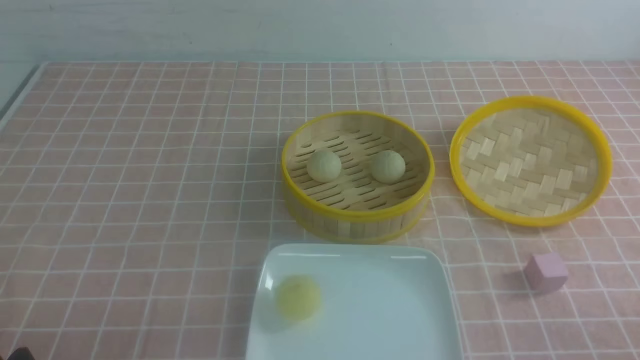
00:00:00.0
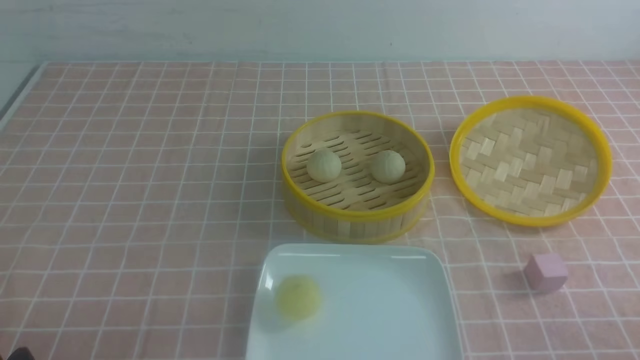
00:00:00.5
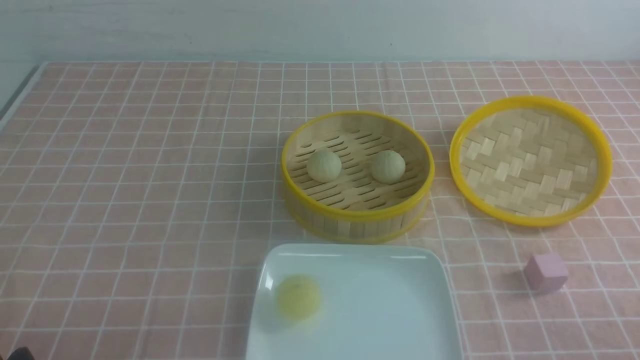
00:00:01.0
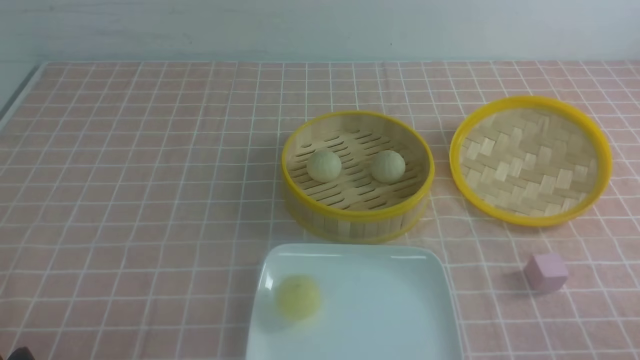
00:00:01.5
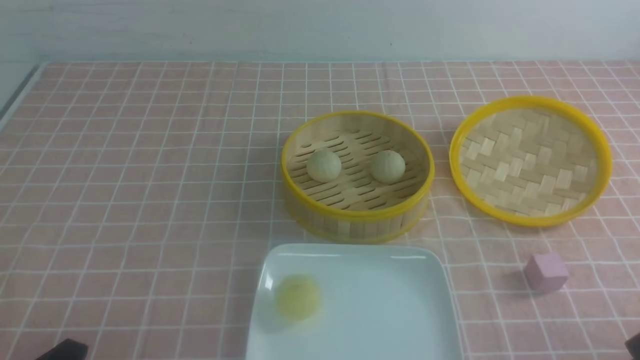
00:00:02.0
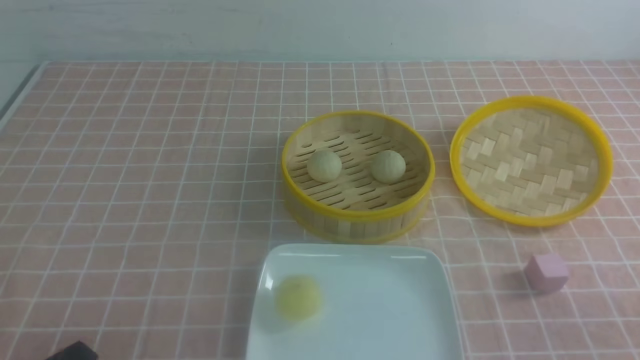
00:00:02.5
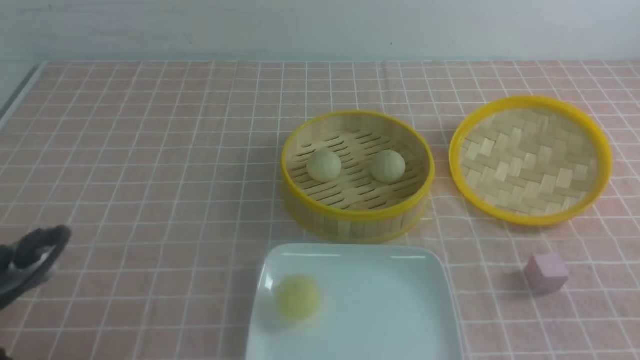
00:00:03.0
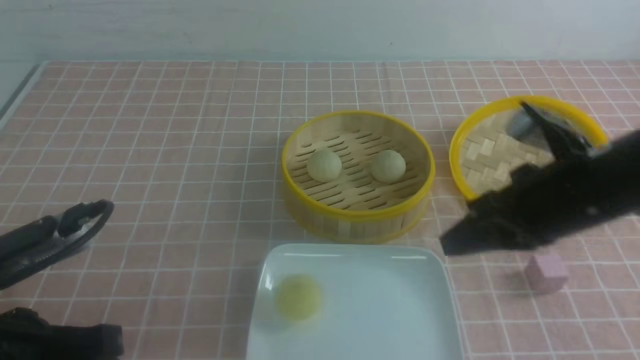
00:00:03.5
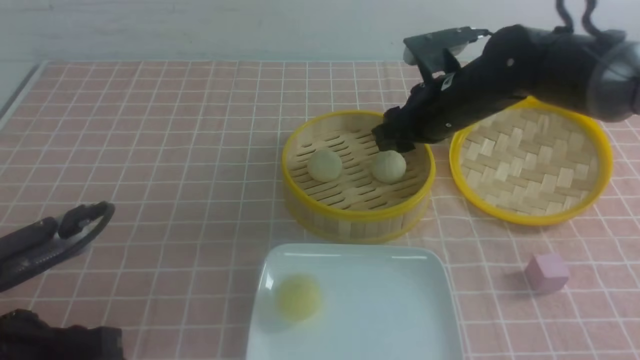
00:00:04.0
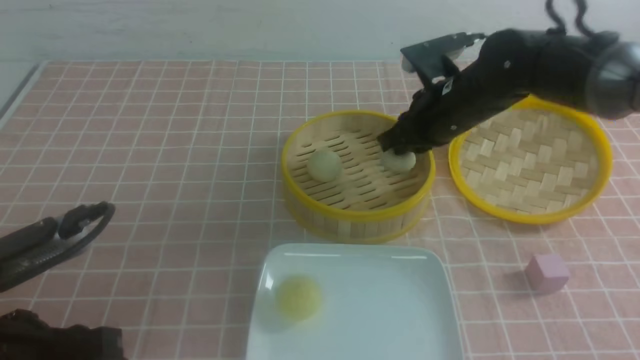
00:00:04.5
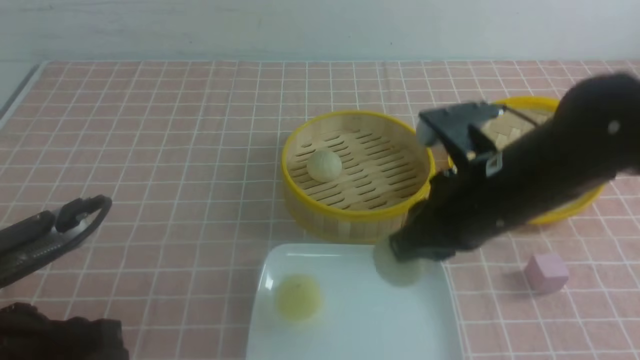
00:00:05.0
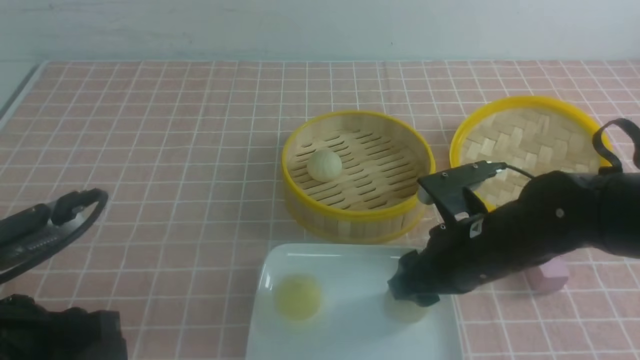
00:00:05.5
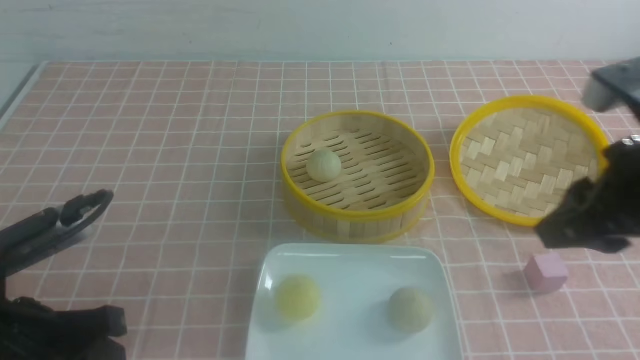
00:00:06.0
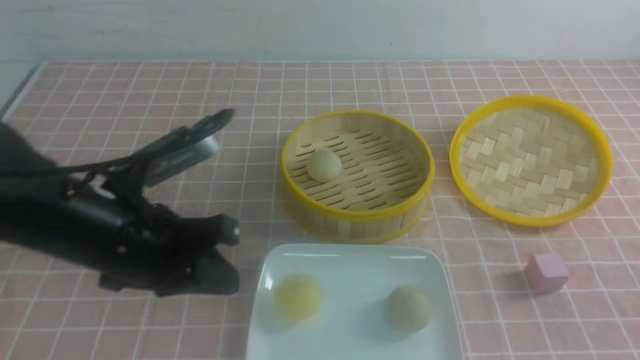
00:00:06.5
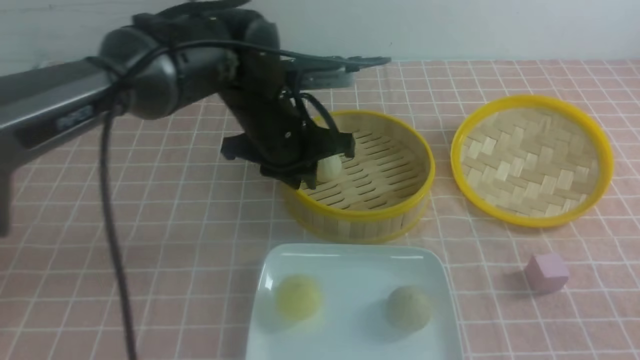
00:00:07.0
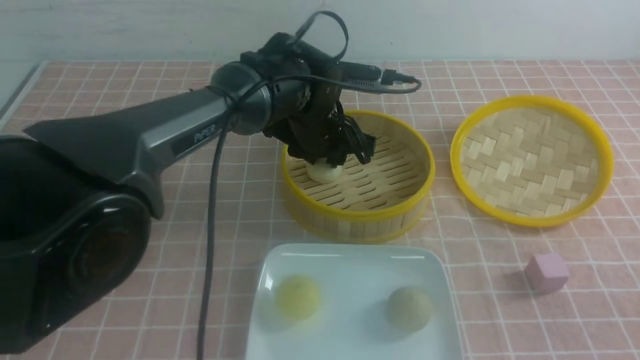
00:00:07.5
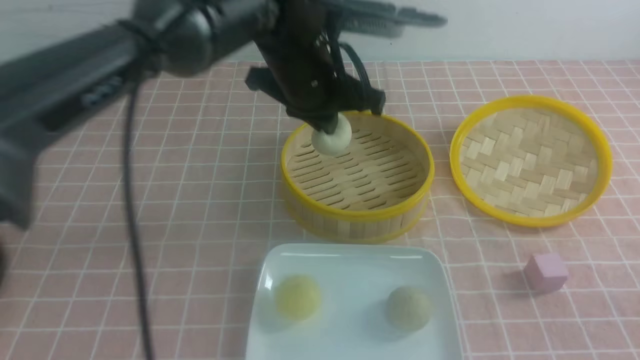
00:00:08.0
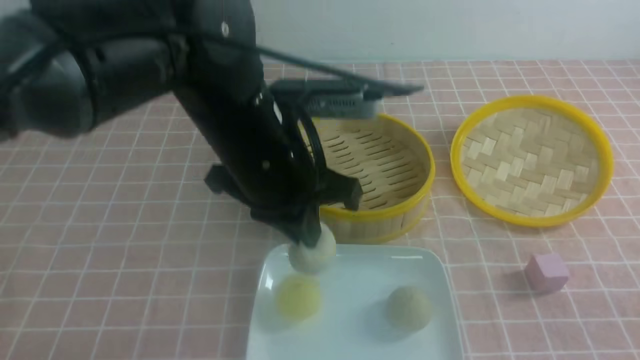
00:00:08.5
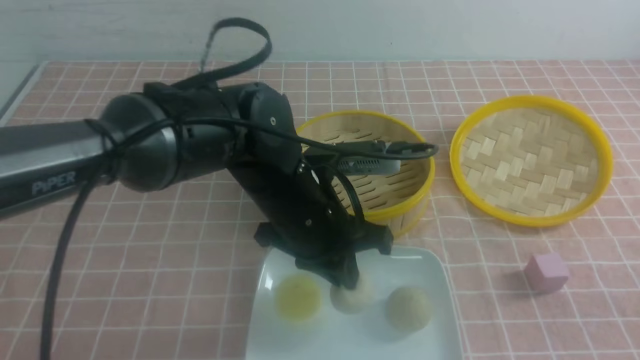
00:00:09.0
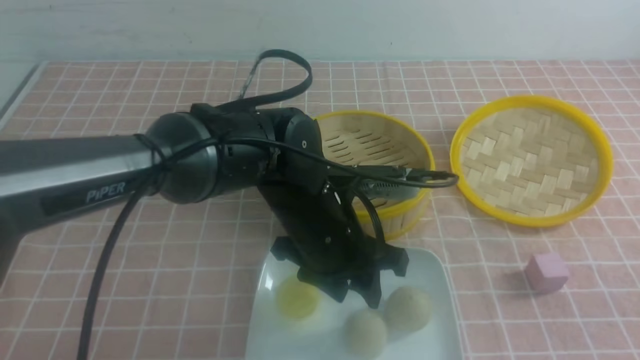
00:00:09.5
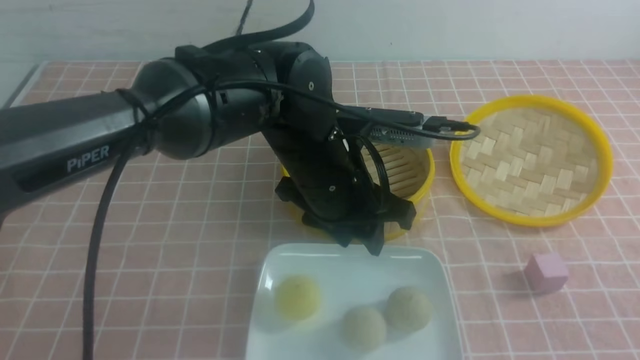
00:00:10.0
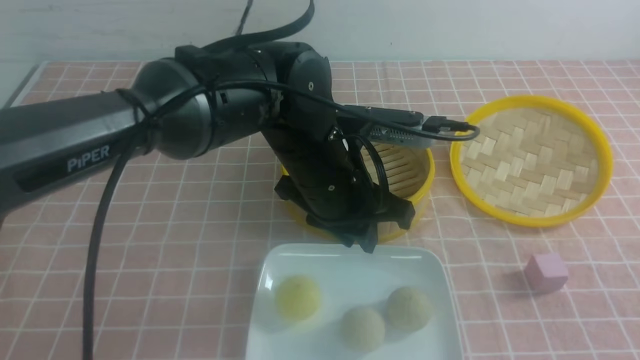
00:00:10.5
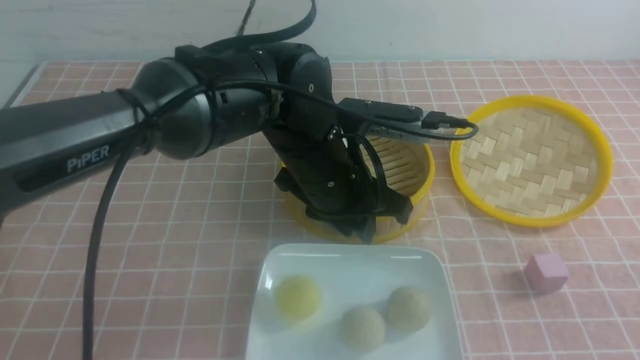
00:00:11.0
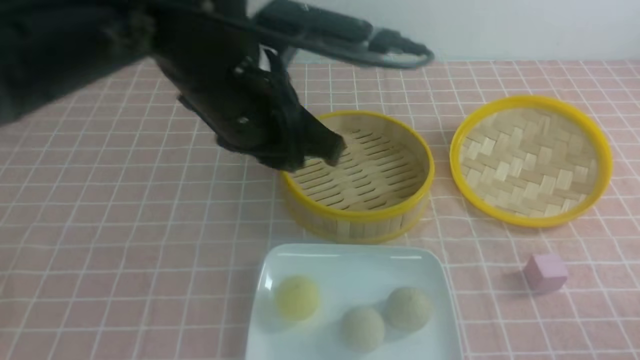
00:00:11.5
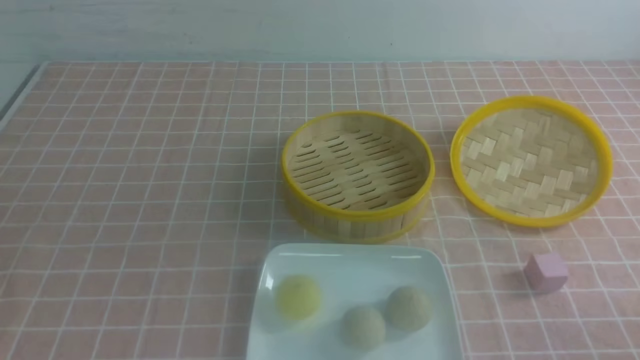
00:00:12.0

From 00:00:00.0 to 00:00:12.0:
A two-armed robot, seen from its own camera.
Step, from 00:00:00.0 to 00:00:04.0: use the right arm to grab the steamed stuffed bun that is closest to it.
Step, from 00:00:04.5 to 00:00:05.5: use the right arm to put the steamed stuffed bun into the plate.
Step, from 00:00:06.0 to 00:00:07.5: use the left arm to grab the steamed stuffed bun that is closest to it.
Step, from 00:00:08.0 to 00:00:09.0: use the left arm to put the steamed stuffed bun into the plate.
From 00:00:02.0 to 00:00:04.0: The right gripper heads forward and to the left, covering roughly 40 cm, and closes and opens again. The left gripper goes about 10 cm upward and forward, and closes and opens again.
From 00:00:04.0 to 00:00:06.0: The right gripper goes roughly 25 cm backward, upward and to the right, and closes and opens again.
From 00:00:06.0 to 00:00:08.0: The right gripper heads backward and to the right, covering about 15 cm, and closes its fingers. The left gripper moves to the right, forward and upward, about 30 cm, and closes.
From 00:00:08.0 to 00:00:10.0: The left gripper shifts about 10 cm downward and backward, and opens its fingers. Meanwhile the right gripper goes about 5 cm backward.
From 00:00:10.0 to 00:00:12.0: The right gripper travels downward by about 15 cm, while the left gripper shifts approximately 35 cm to the left, backward and upward, and closes its fingers.

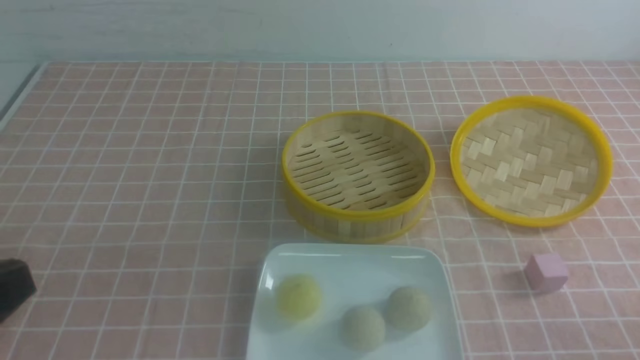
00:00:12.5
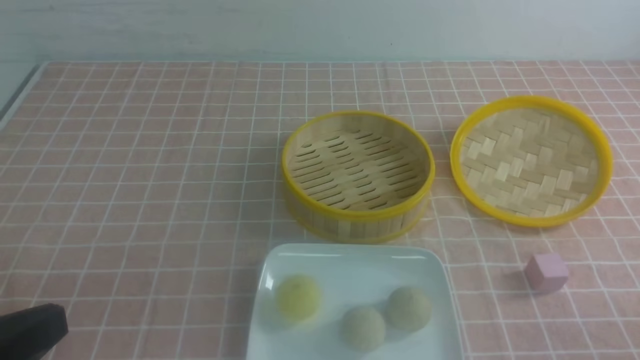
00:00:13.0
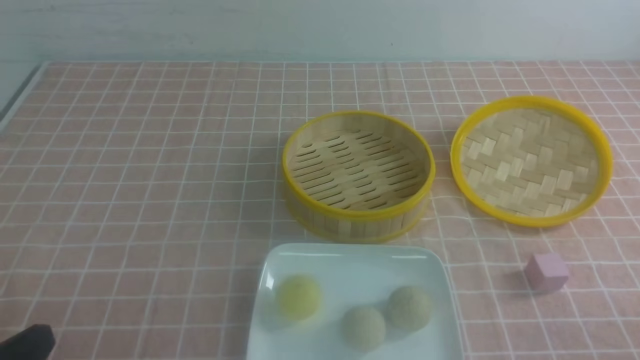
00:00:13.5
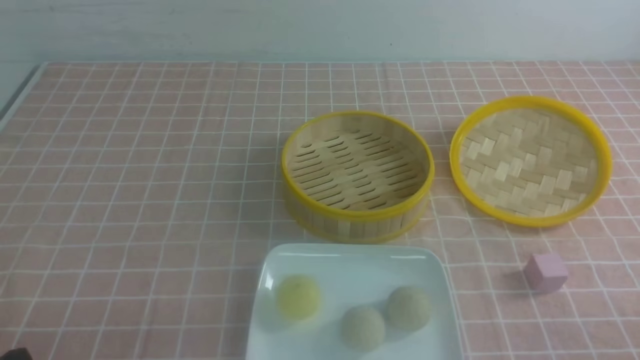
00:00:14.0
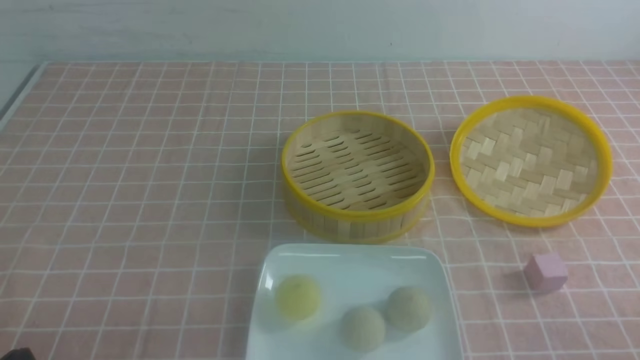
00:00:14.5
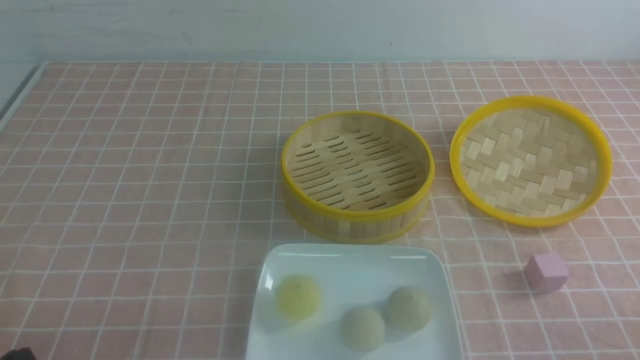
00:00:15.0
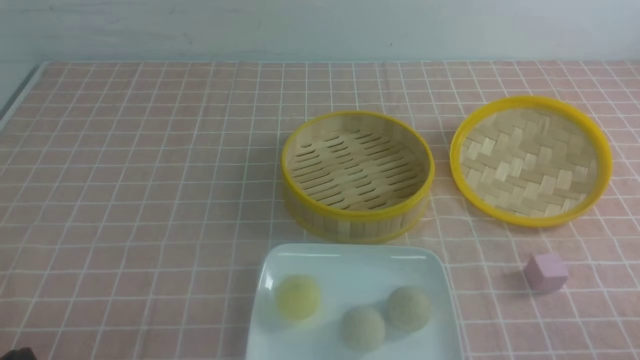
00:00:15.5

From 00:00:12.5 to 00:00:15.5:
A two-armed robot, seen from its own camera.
From 00:00:12.5 to 00:00:14.0: The left gripper is displaced downward by roughly 15 cm.
From 00:00:14.0 to 00:00:15.5: Both grippers stay about where they are.

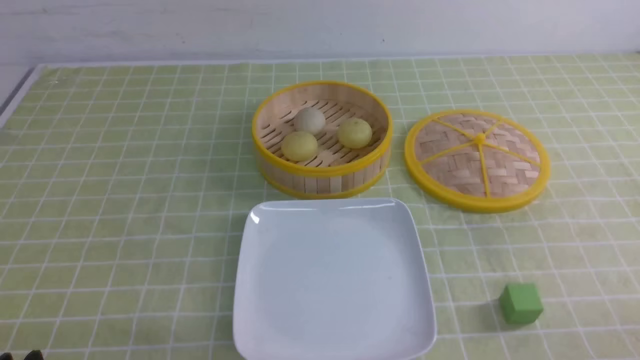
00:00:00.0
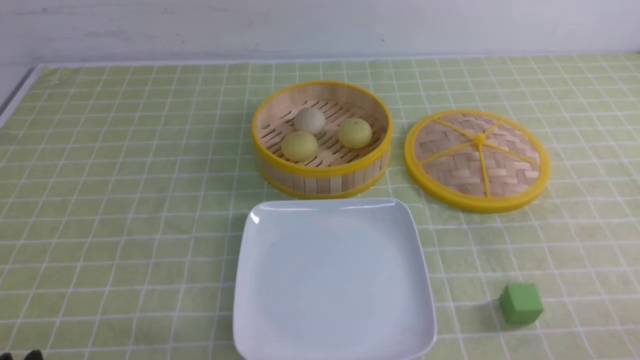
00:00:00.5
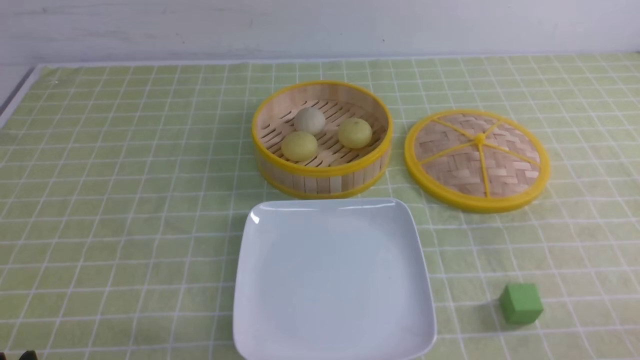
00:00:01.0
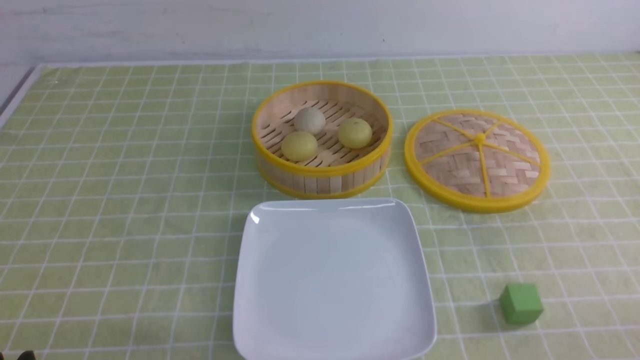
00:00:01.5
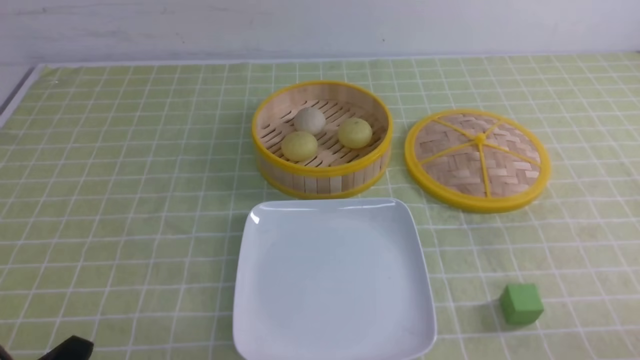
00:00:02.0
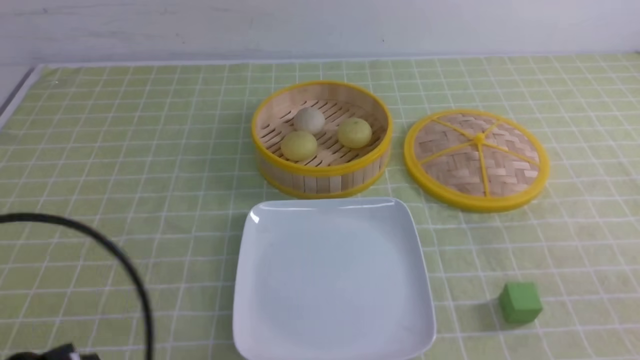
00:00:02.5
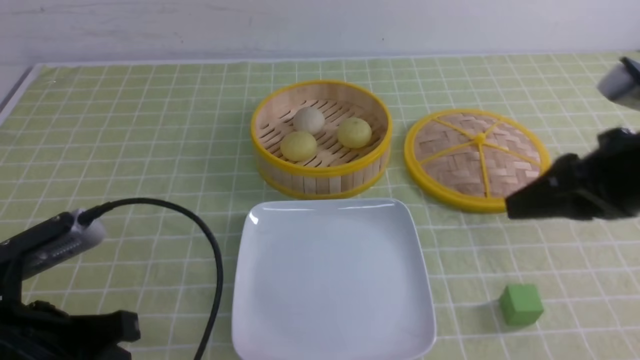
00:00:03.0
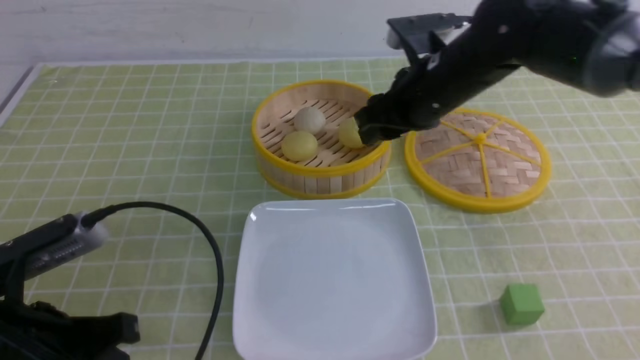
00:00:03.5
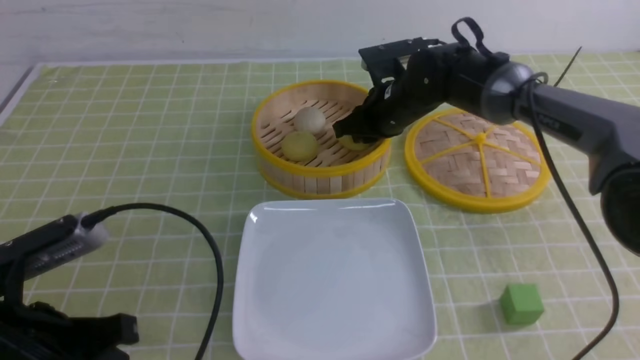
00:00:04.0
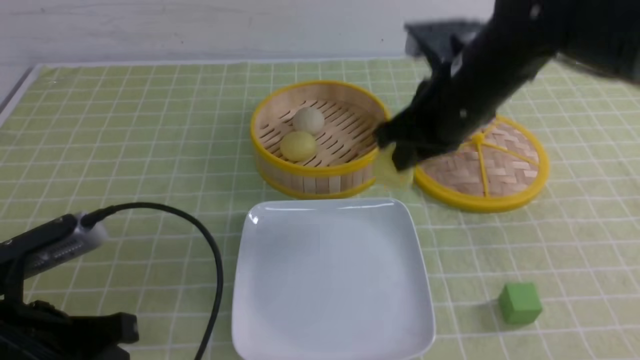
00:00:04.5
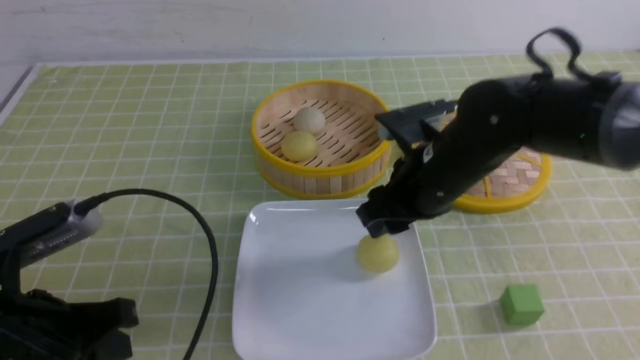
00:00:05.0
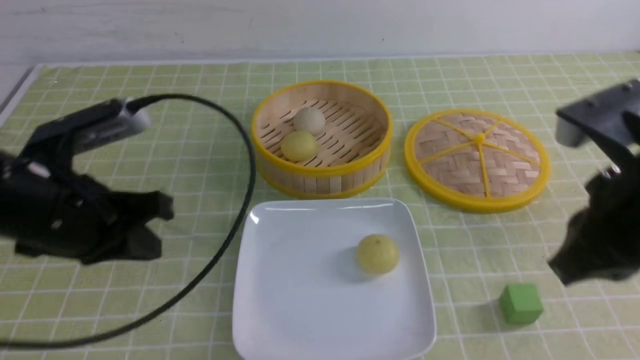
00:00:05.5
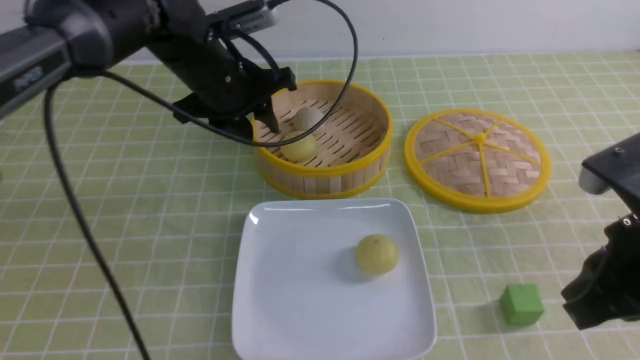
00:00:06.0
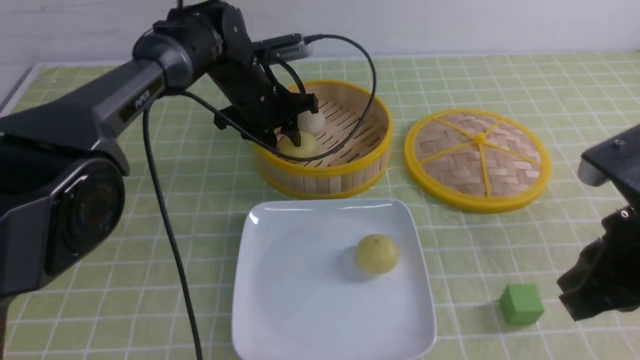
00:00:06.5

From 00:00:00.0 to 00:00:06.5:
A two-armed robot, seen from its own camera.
Step, from 00:00:00.0 to 00:00:04.0: use the right arm to grab the steamed stuffed bun that is closest to it.
From 00:00:02.0 to 00:00:04.5: The right gripper shifts about 35 cm forward and to the left, and closes its fingers. Meanwhile the left gripper moves forward and upward, approximately 10 cm.
From 00:00:04.5 to 00:00:06.5: The left gripper shifts roughly 35 cm forward and to the right. Meanwhile the right gripper goes about 20 cm backward and to the right, and opens and closes again.
